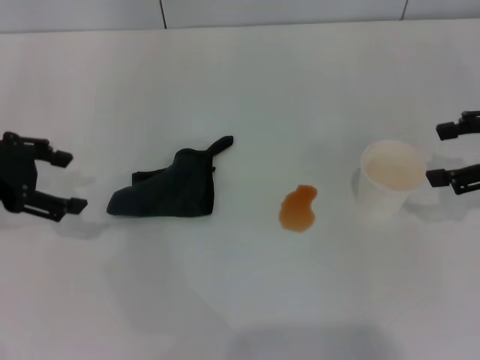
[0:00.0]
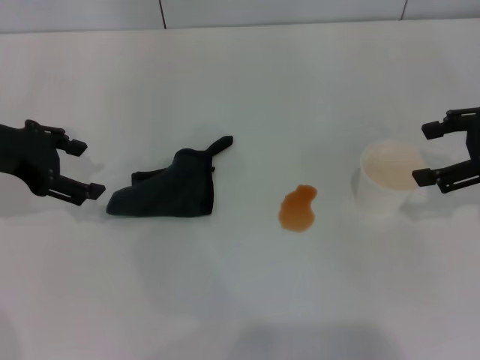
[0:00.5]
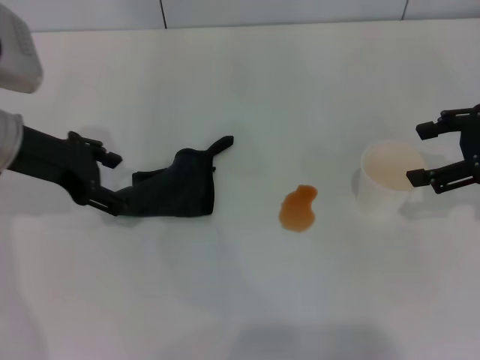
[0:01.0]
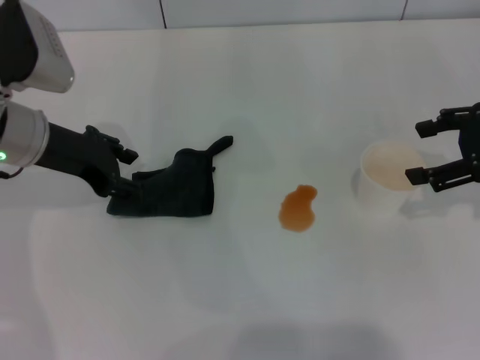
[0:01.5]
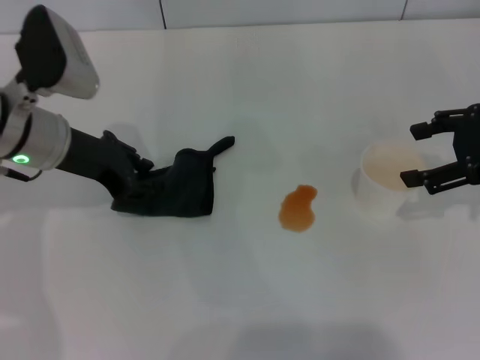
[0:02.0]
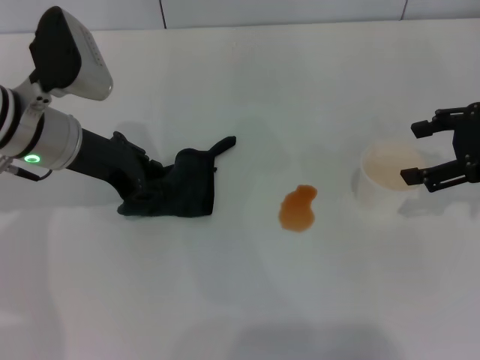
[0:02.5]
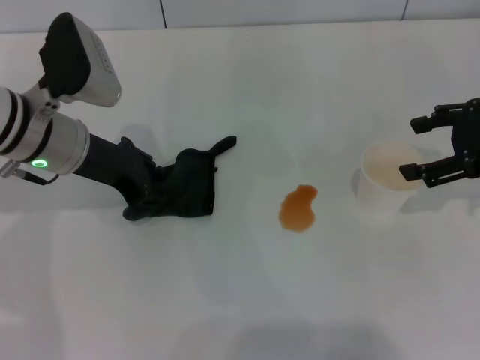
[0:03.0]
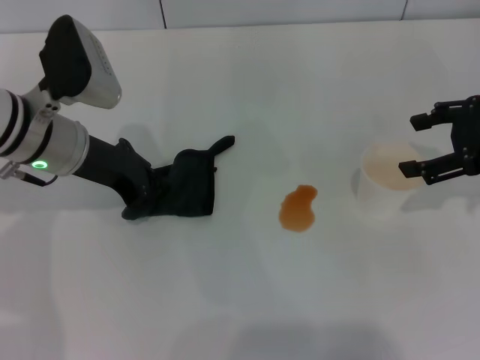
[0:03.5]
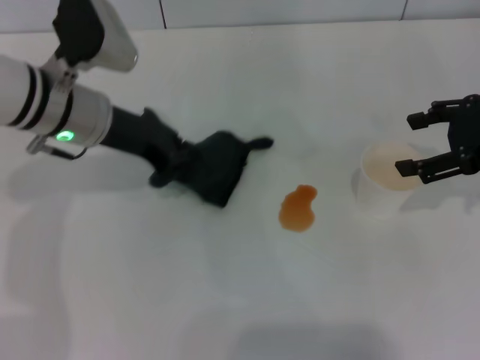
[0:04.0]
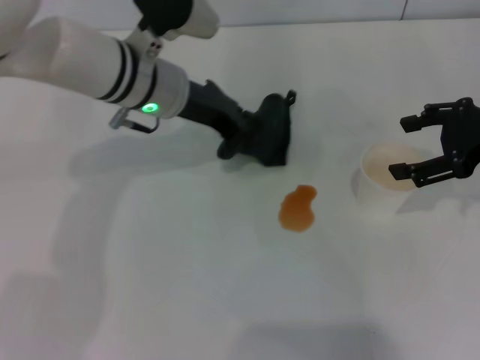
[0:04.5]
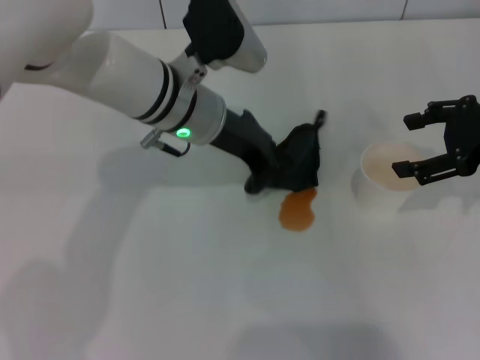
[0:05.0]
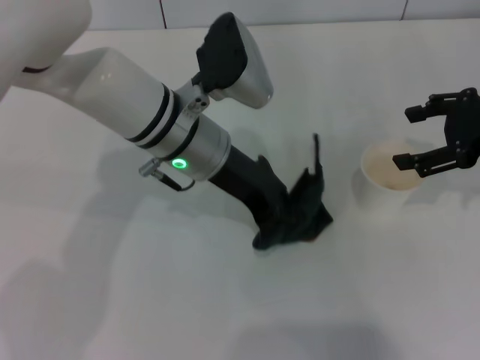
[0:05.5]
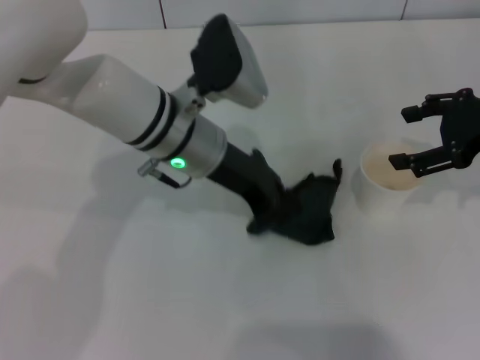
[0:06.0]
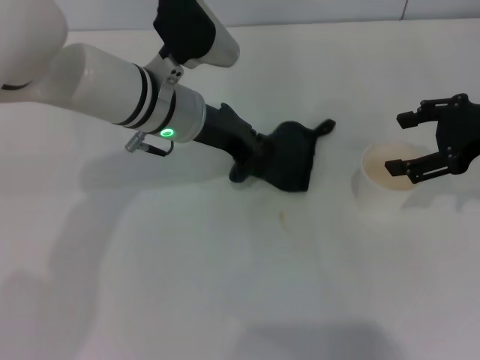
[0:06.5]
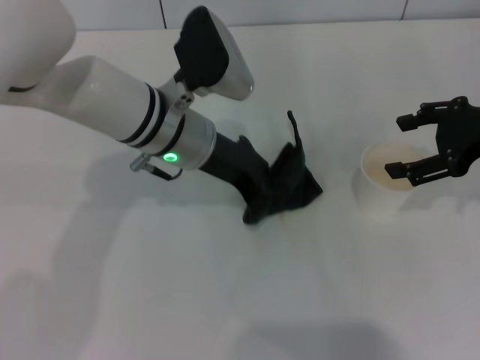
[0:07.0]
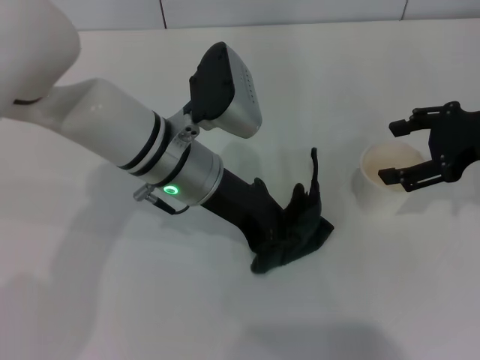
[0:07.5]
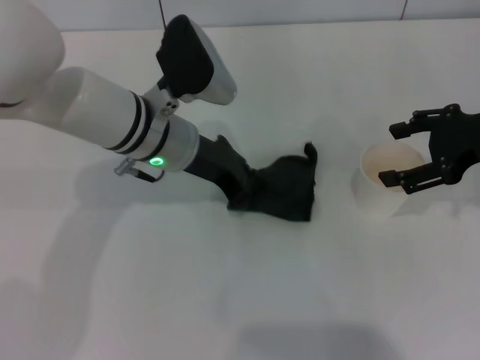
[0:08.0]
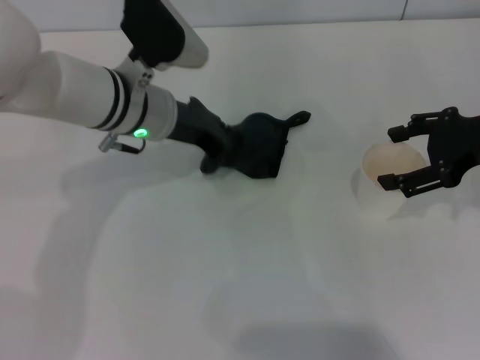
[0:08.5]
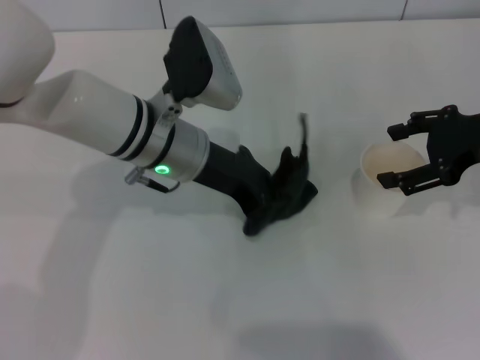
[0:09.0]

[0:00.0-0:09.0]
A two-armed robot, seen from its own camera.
Step, 0:00.0 to 0:03.0: Grasp the rag with the left gripper.
0:00.0 to 0:02.0: The left gripper is displaced to the right by some 10 cm, and closes up.
0:02.0 to 0:04.5: The left gripper travels to the right by roughly 10 cm, and closes its fingers.
0:07.0 to 0:09.0: The grippers stay close to where they were, moving slightly.

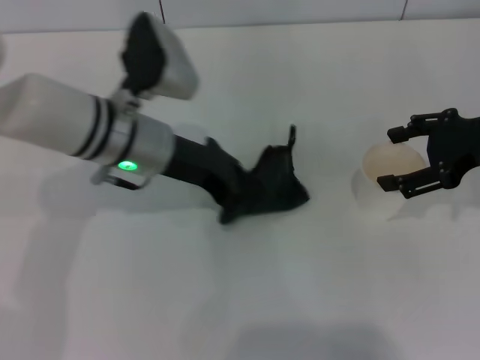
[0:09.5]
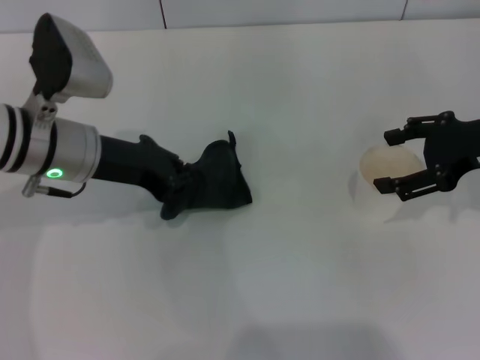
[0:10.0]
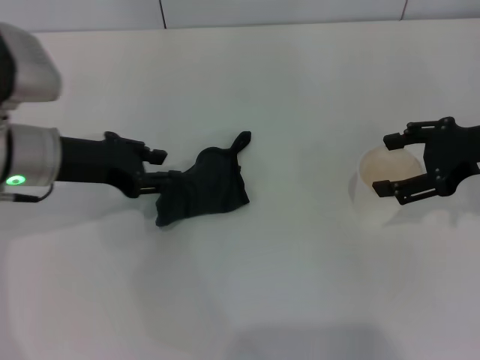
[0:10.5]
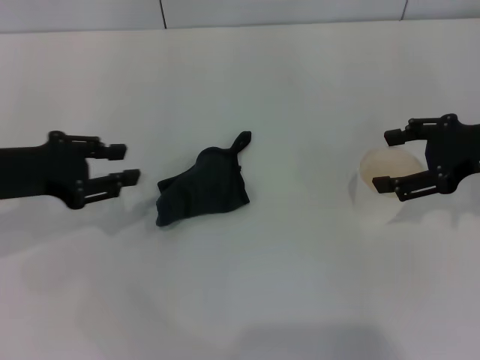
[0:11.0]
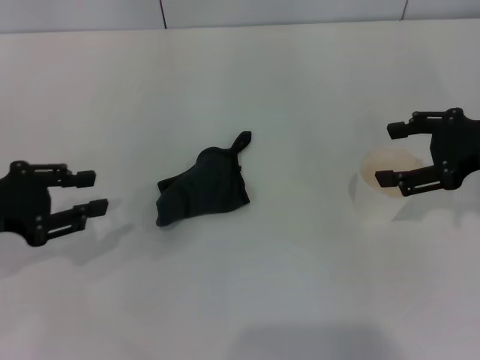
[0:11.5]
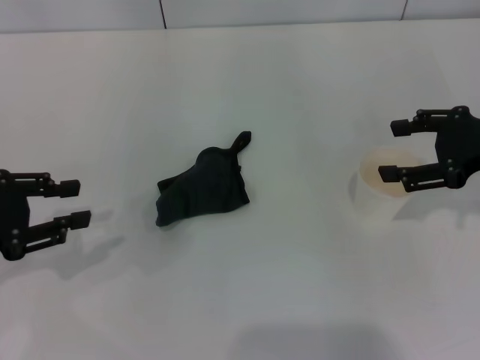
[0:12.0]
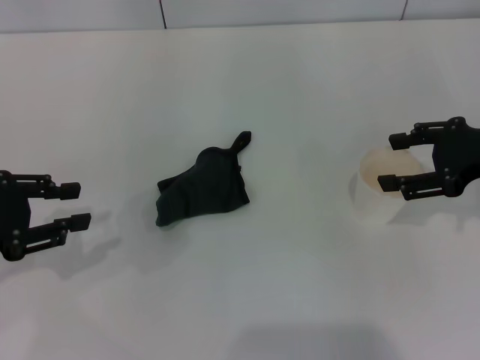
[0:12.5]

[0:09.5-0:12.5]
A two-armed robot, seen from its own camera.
Step, 0:10.5 to 0:11.0: Place the rag on the table with the left gripper.
0:09.5 to 0:11.0: The left gripper is displaced to the left by approximately 15 cm, and opens its fingers.
0:11.0 to 0:12.5: The right gripper closes its fingers. Meanwhile the left gripper changes place by about 5 cm.
